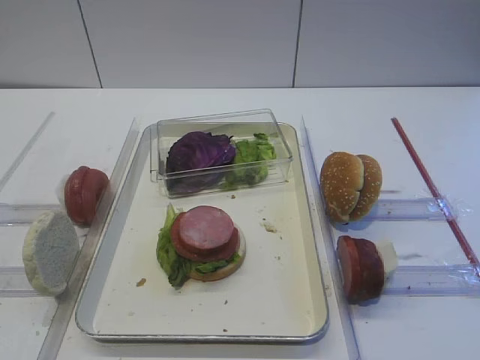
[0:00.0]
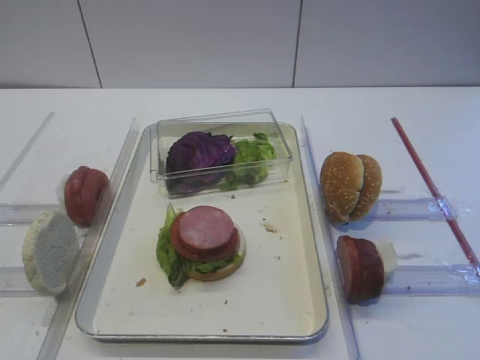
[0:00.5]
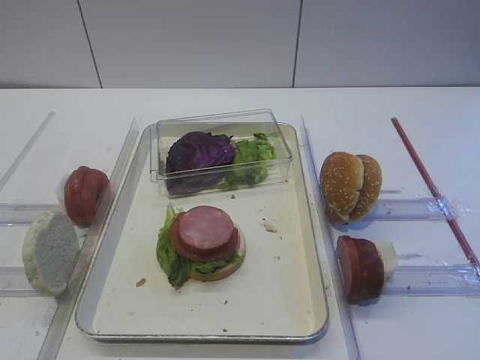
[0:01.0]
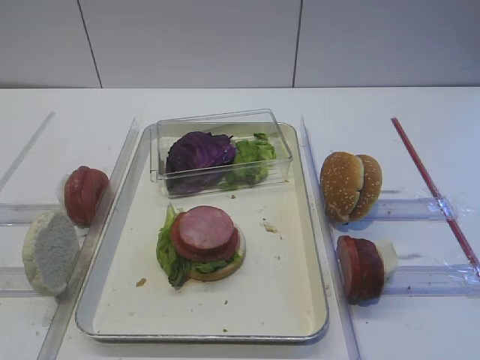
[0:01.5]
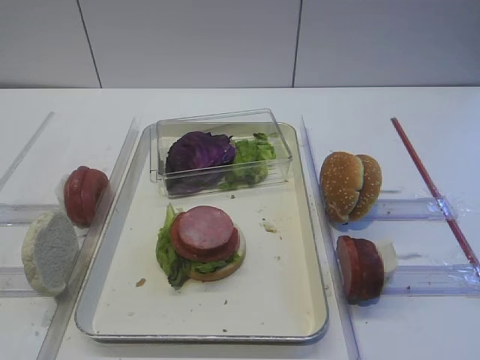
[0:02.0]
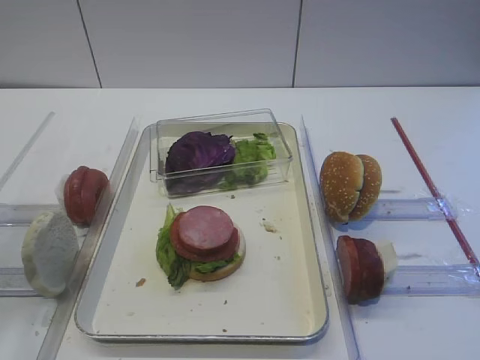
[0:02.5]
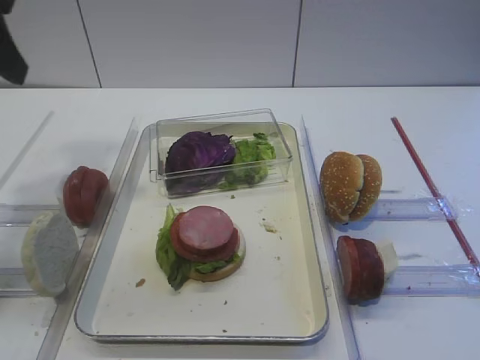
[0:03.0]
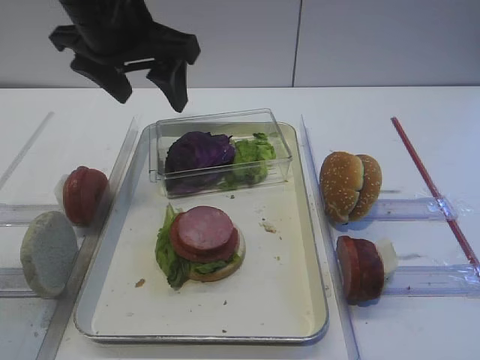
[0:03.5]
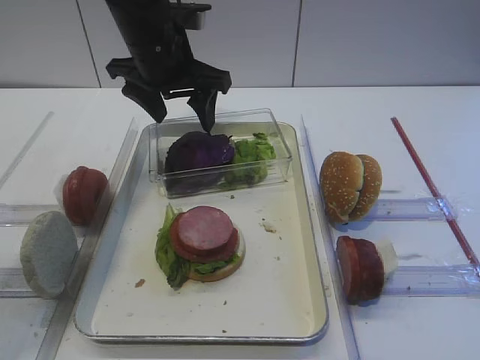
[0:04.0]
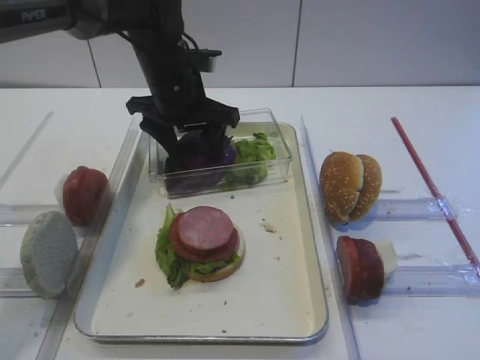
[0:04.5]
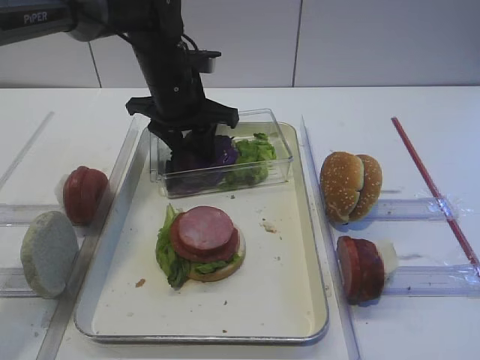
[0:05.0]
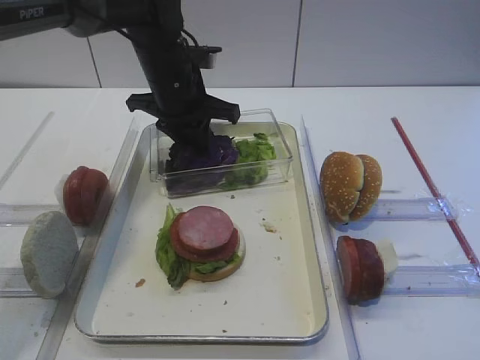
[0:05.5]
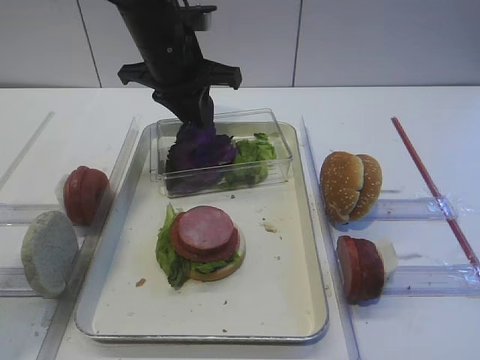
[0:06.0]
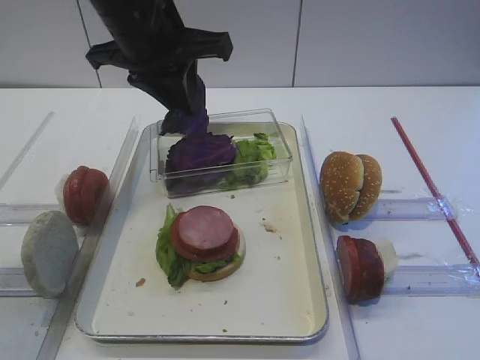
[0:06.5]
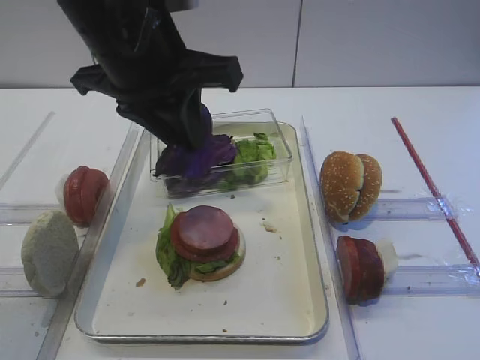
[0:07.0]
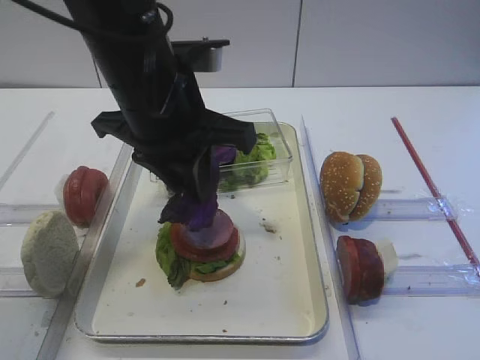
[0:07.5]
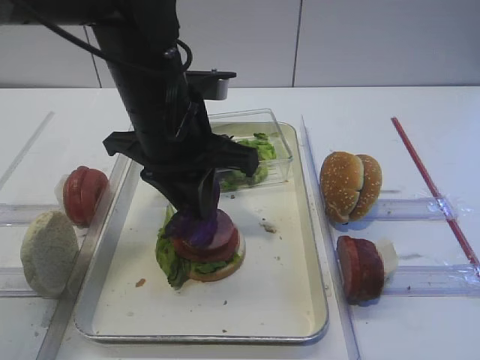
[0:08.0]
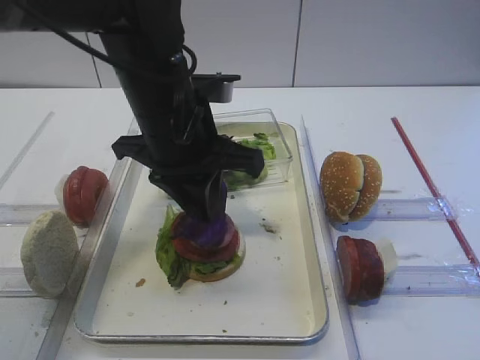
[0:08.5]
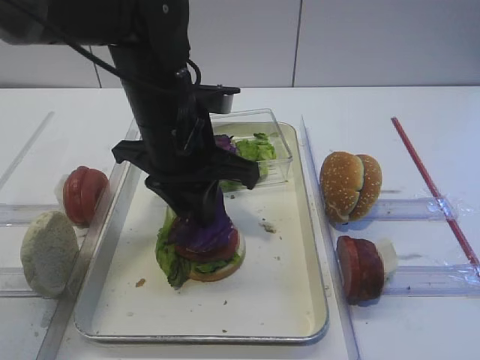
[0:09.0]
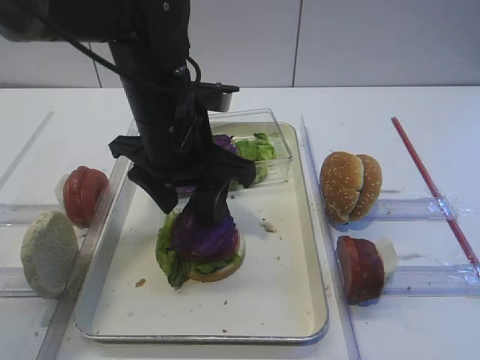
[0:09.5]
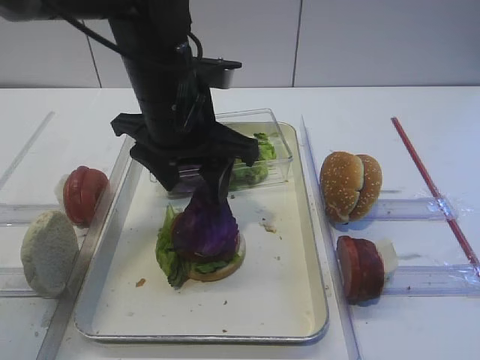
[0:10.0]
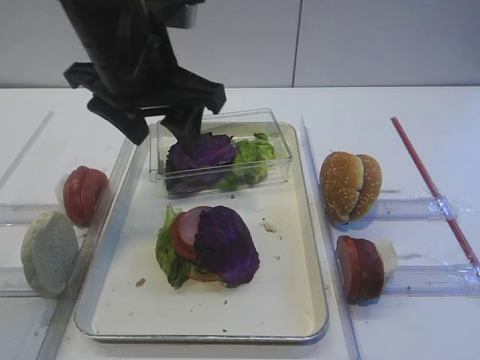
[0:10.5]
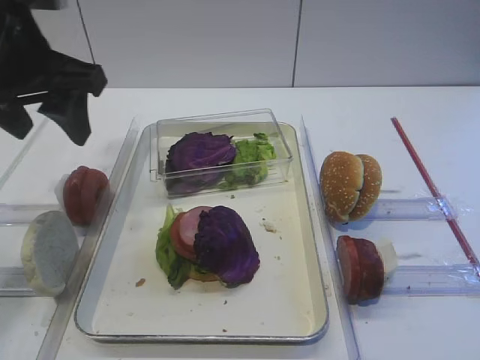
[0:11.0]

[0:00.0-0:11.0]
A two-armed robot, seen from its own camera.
Step, 0:00.0 to 0:06.0: Pick up the purple cabbage with the left gripper.
Step, 0:06.5 to 0:10.0: Place the purple cabbage on the cutlet with the left gripper.
0:02.0 to 0:03.5: The left gripper moves forward and to the right, roughly 35 cm, and opens its fingers.
0:03.5 to 0:05.5: The left gripper goes approximately 15 cm downward and forward, and closes its fingers.
0:05.5 to 0:07.5: The left gripper heads backward and upward, covering approximately 15 cm.
0:07.5 to 0:09.0: The left gripper changes place by roughly 5 cm.
0:09.0 to 0:11.0: The right gripper closes; the left gripper is displaced to the left and upward by approximately 15 cm, and opens.

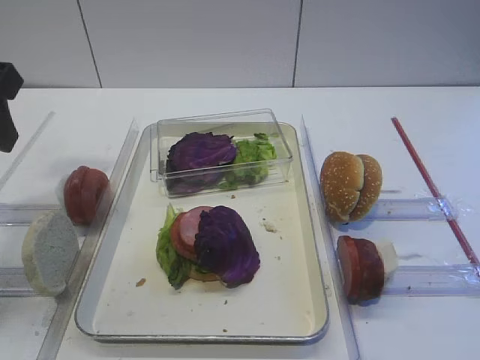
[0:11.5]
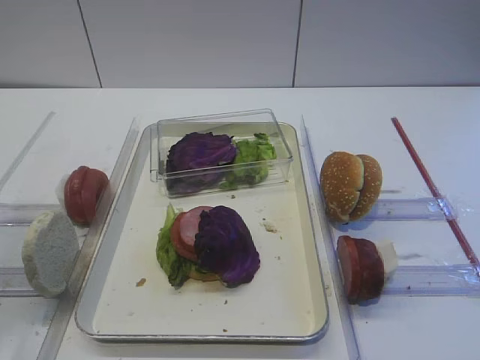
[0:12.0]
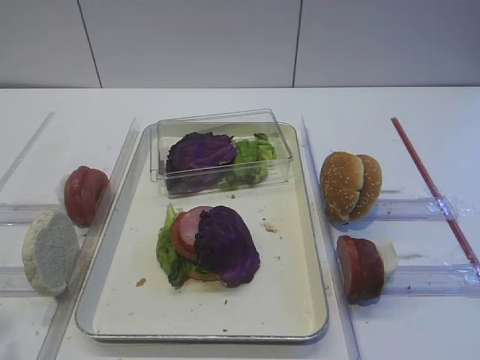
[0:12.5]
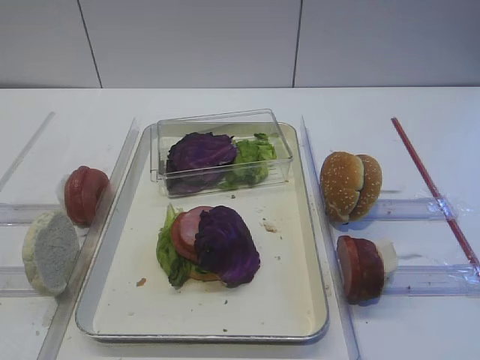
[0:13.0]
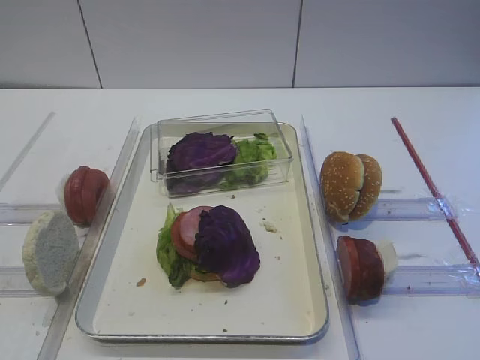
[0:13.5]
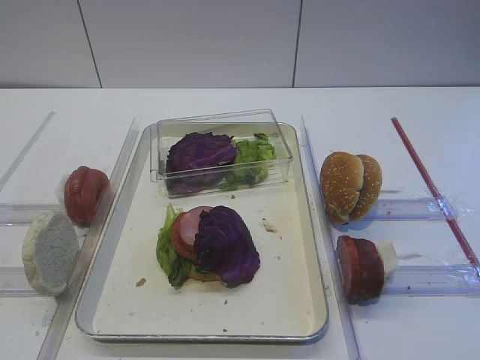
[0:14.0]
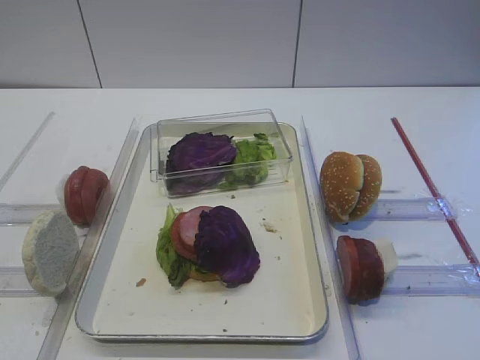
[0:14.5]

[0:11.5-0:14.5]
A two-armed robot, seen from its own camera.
0:11.5 to 0:13.0: The left gripper goes roughly 25 cm backward.
0:13.0 to 0:14.5: Both grippers stay put.
